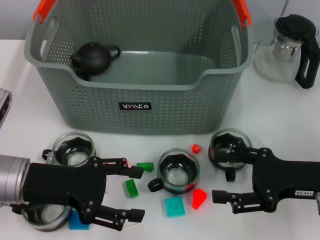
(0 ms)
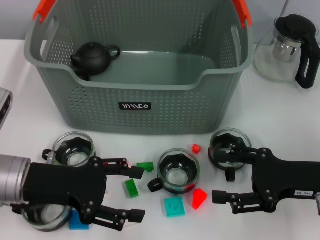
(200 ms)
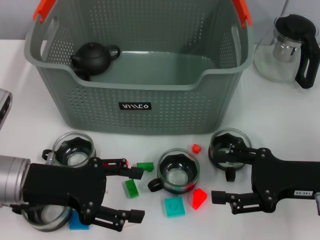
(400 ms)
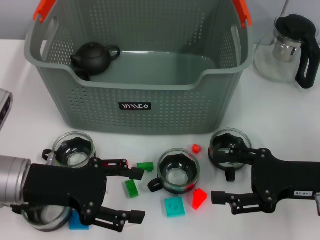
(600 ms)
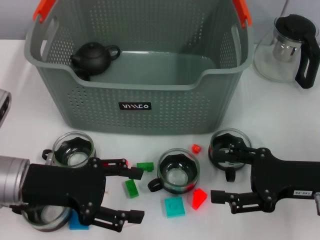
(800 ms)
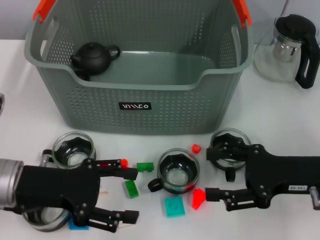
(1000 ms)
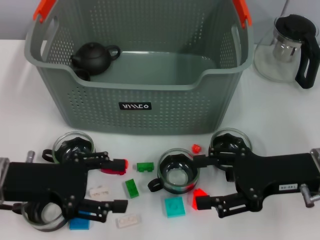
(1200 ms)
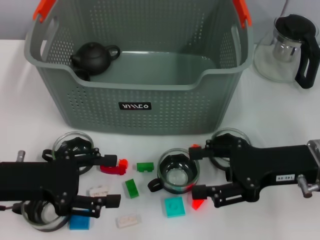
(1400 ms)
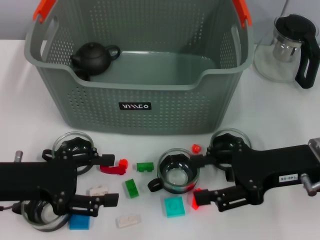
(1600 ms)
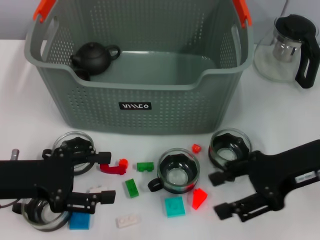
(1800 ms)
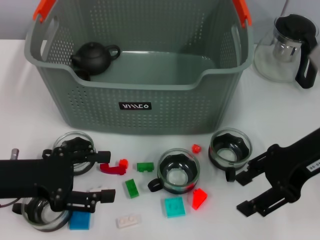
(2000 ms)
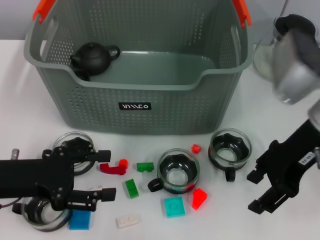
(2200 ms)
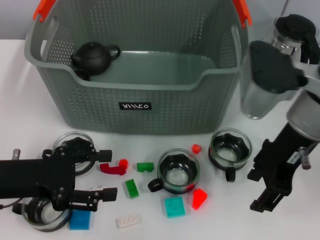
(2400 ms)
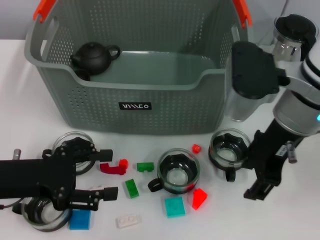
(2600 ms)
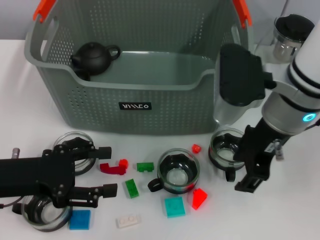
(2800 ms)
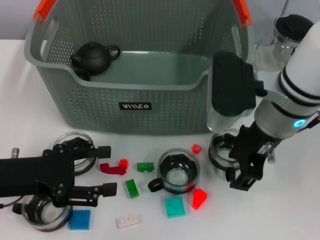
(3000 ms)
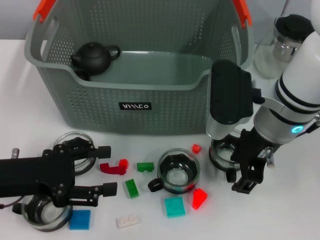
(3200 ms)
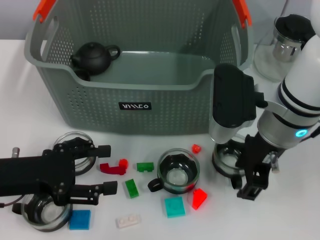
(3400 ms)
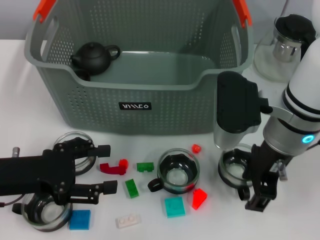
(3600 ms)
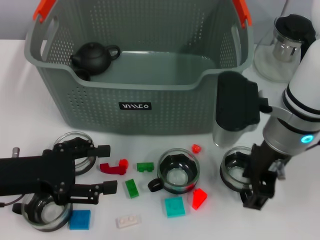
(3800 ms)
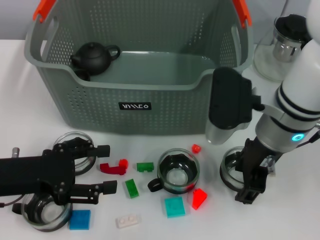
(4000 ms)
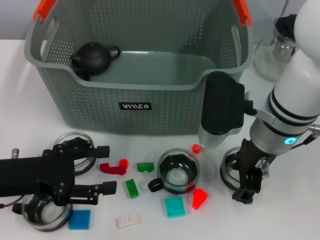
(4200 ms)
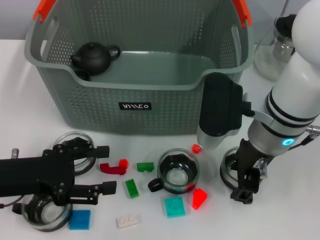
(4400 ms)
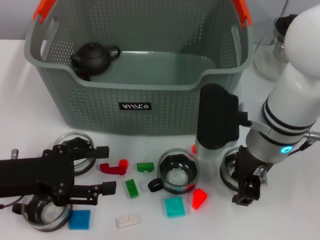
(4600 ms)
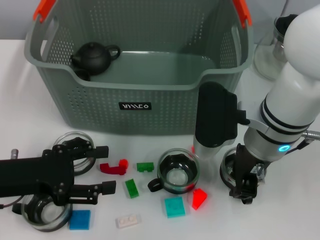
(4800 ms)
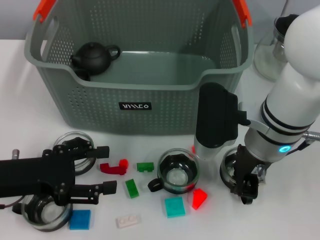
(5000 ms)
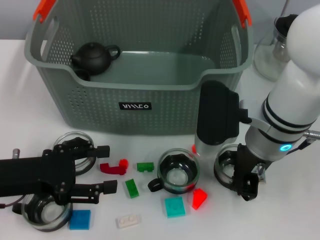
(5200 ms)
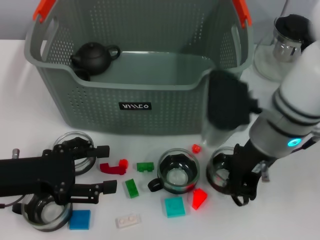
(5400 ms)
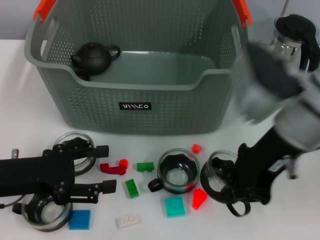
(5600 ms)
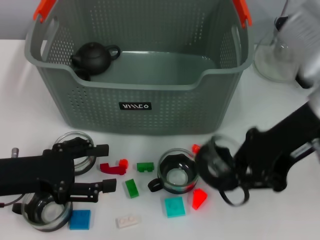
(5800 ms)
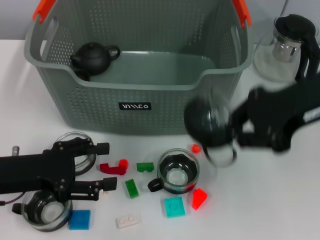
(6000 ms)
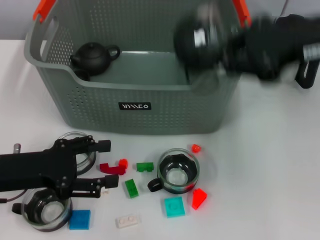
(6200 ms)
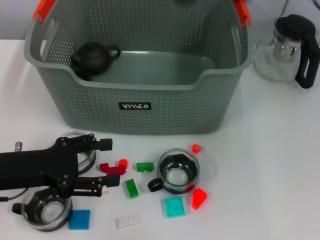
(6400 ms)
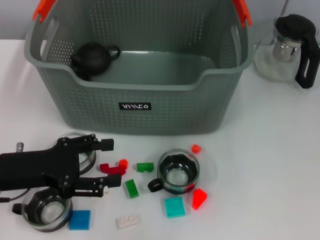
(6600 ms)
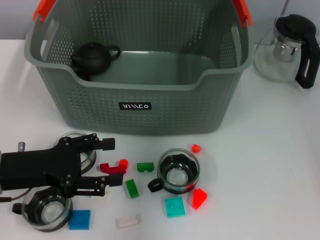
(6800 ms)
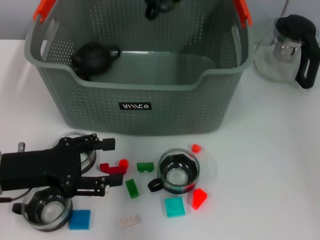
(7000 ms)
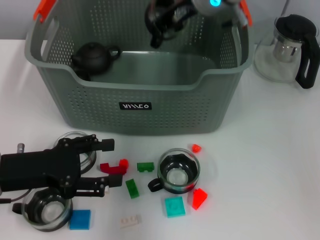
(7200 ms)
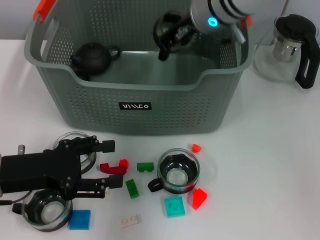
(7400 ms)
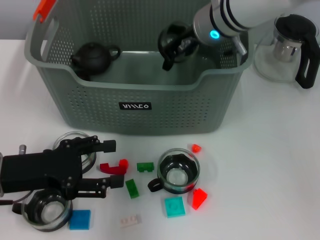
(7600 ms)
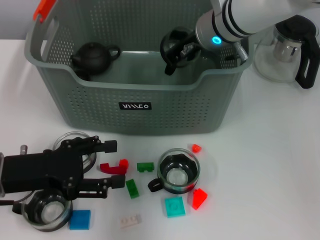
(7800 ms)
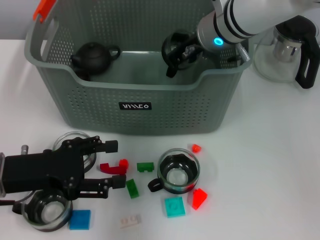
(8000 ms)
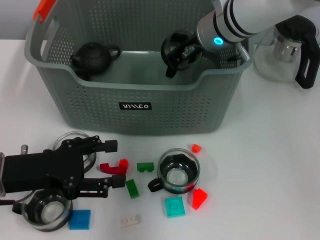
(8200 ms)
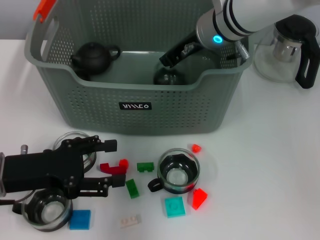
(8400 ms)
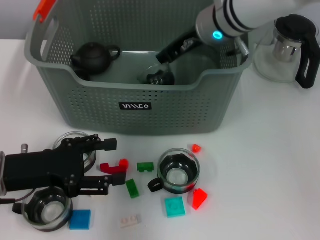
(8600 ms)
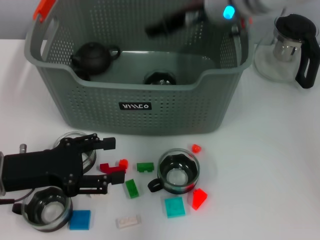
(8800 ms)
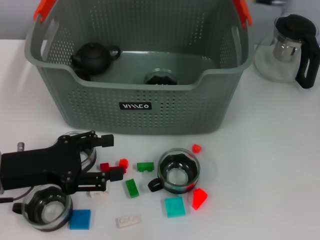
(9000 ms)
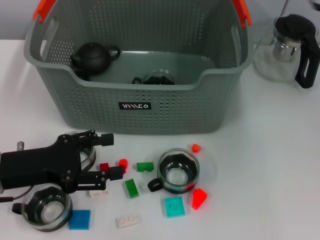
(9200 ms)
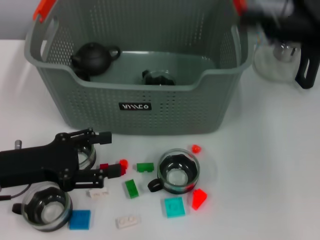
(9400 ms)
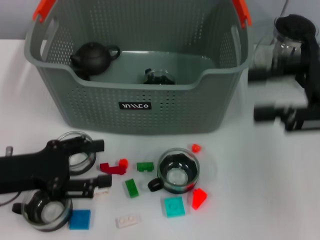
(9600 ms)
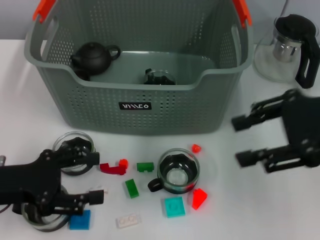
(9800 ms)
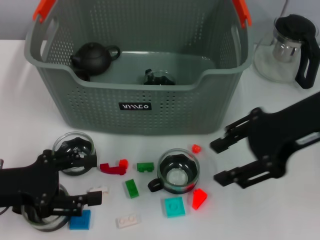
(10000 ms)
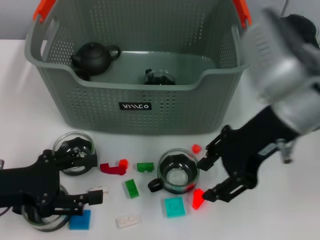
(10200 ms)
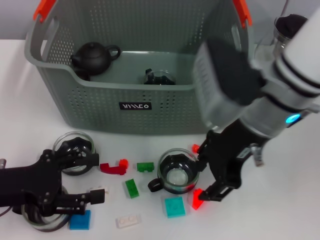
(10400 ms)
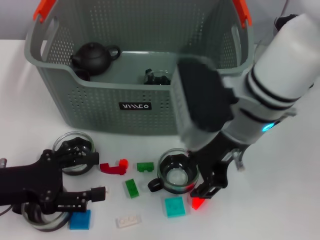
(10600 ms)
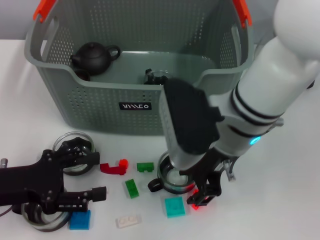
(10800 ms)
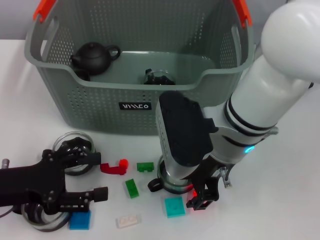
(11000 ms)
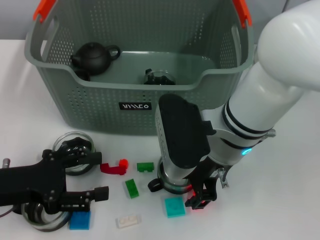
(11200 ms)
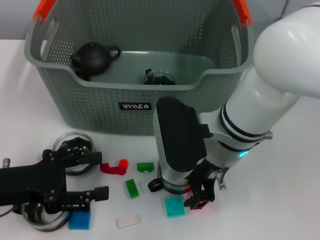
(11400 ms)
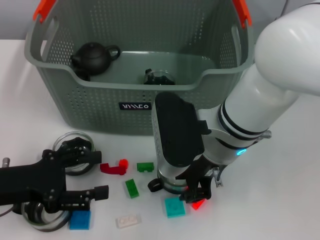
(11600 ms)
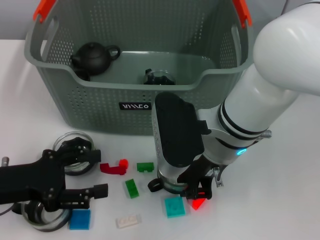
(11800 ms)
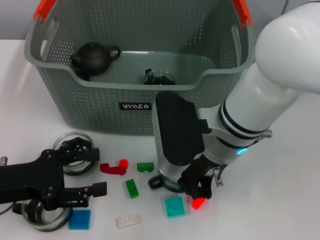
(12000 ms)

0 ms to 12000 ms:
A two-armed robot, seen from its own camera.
Task of the whole recording: pick up the teacup on the table and place it into the storage bin, pick up the block on the table and place it into the storage bin.
Step, 0 ms to 5000 ms: Grasp the cup with right gripper.
Step, 5400 ms to 8400 ms: Place the cup in the storage box with right gripper.
Step, 8600 ms to 11800 ms: Grasp the cup with right gripper.
0 ms to 1600 ms: The right gripper shifts by roughly 5 cm.
1600 ms to 3000 ms: The right gripper travels to the left and upward by approximately 10 cm.
3000 ms to 4400 ms: The grippers move only a little.
4400 ms to 6000 ms: The right gripper goes about 15 cm upward and to the right, and closes.
6000 ms to 7600 ms: The right gripper shifts some 20 cm to the left, forward and downward.
7600 ms to 9000 ms: The right gripper travels to the right and upward by roughly 15 cm, and opens its fingers.
9000 ms to 10400 ms: The right gripper moves backward and downward, some 10 cm, and reaches approximately 10 cm to the right, then returns.
10400 ms to 12000 ms: The right gripper heads downward, covering about 5 cm, and closes its fingers.

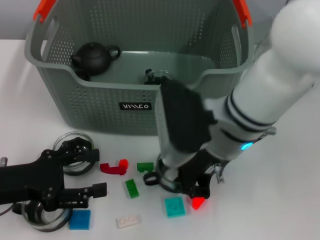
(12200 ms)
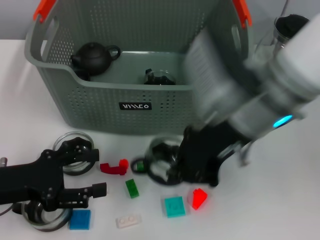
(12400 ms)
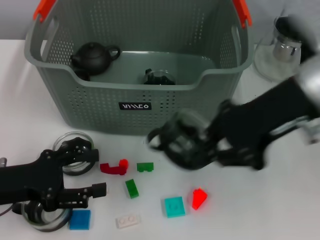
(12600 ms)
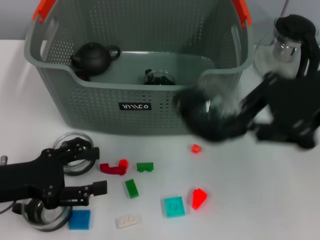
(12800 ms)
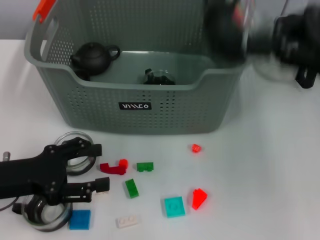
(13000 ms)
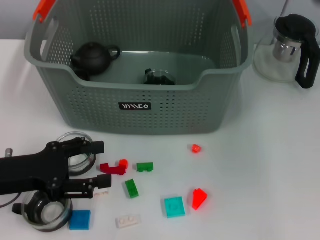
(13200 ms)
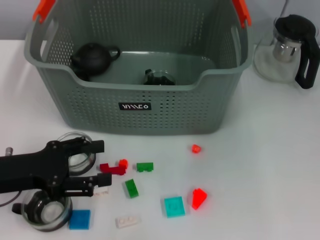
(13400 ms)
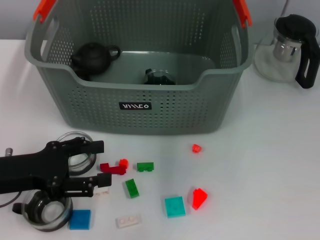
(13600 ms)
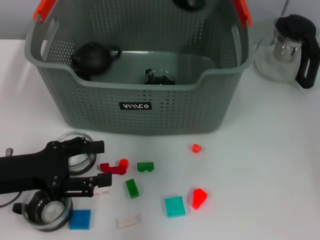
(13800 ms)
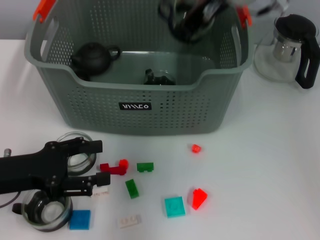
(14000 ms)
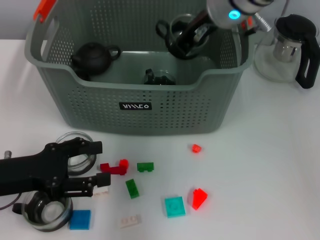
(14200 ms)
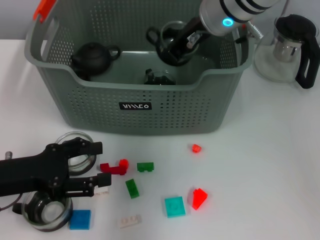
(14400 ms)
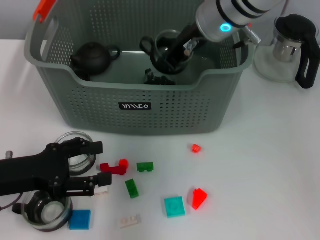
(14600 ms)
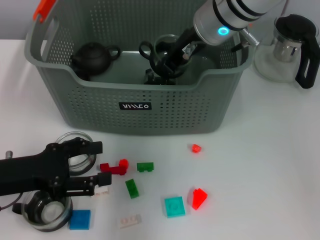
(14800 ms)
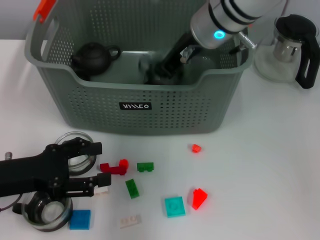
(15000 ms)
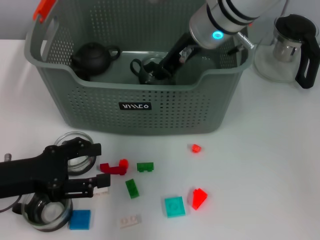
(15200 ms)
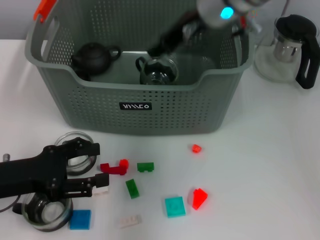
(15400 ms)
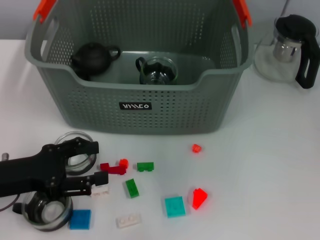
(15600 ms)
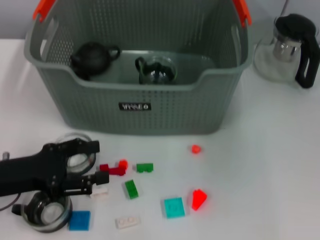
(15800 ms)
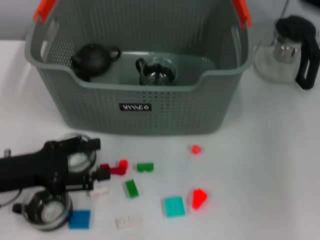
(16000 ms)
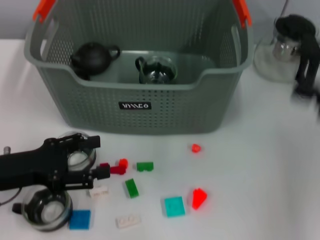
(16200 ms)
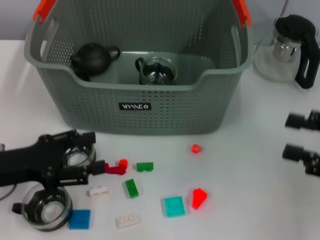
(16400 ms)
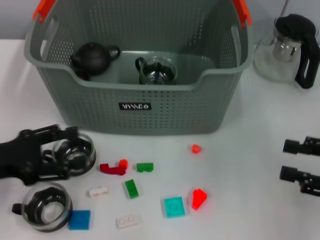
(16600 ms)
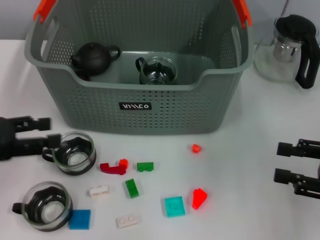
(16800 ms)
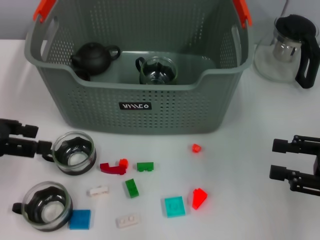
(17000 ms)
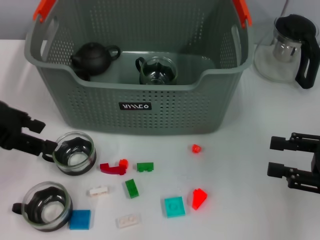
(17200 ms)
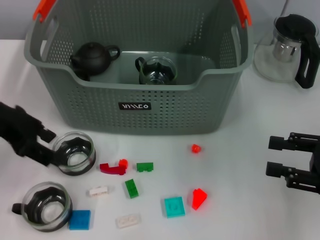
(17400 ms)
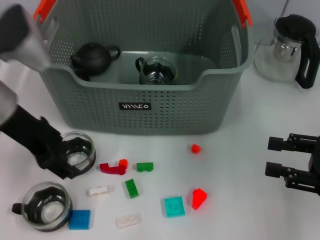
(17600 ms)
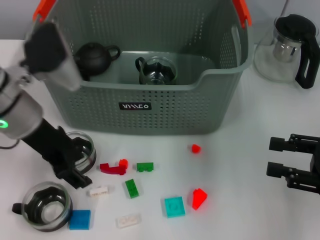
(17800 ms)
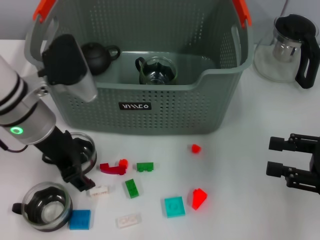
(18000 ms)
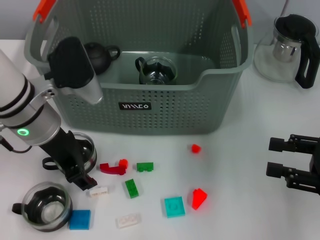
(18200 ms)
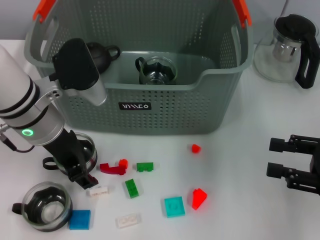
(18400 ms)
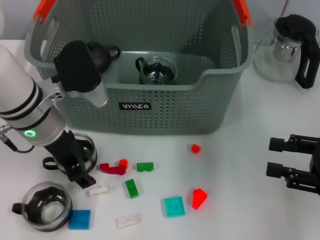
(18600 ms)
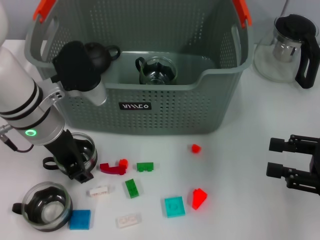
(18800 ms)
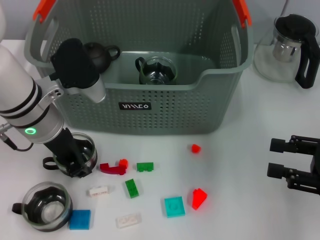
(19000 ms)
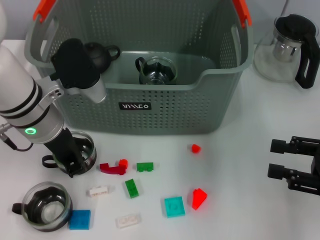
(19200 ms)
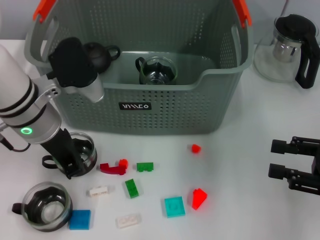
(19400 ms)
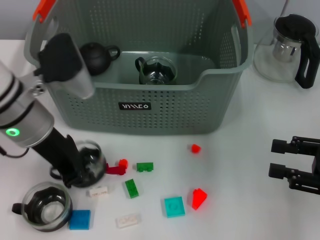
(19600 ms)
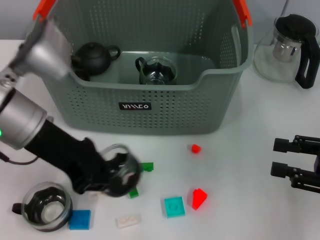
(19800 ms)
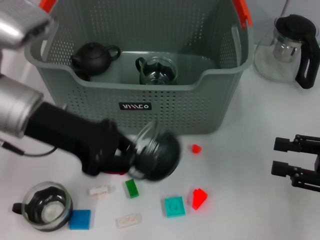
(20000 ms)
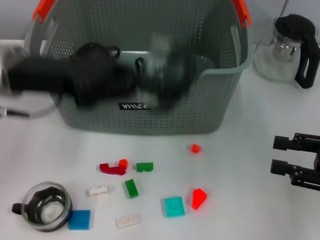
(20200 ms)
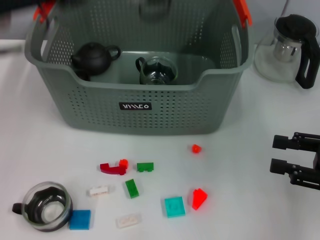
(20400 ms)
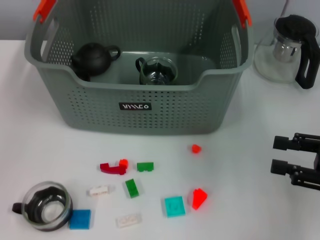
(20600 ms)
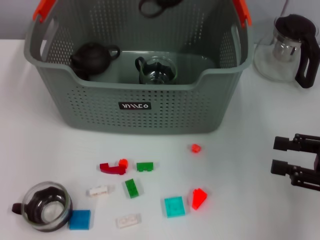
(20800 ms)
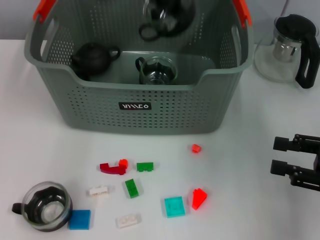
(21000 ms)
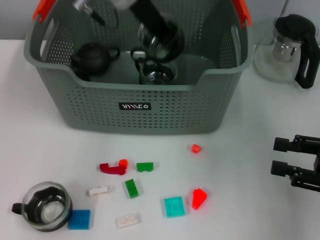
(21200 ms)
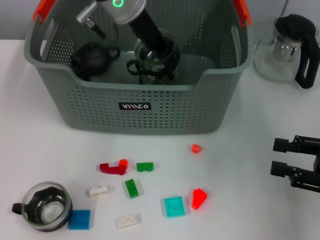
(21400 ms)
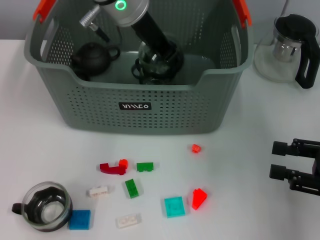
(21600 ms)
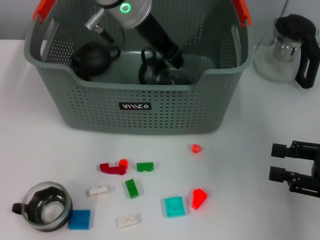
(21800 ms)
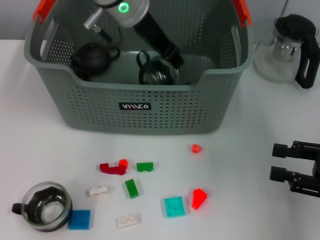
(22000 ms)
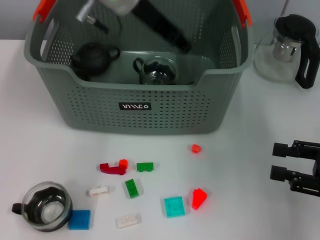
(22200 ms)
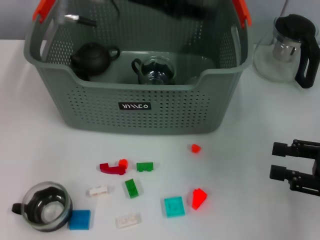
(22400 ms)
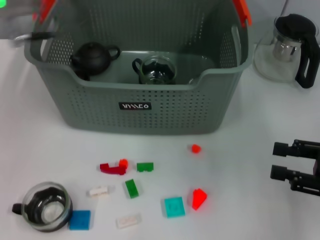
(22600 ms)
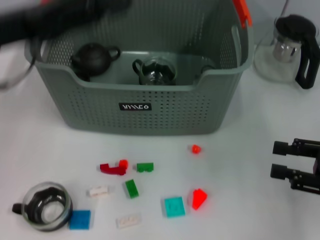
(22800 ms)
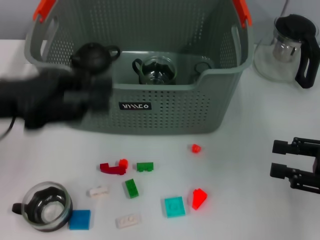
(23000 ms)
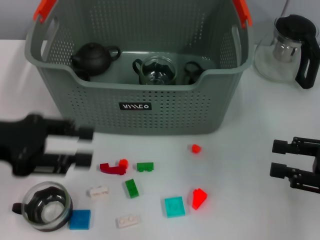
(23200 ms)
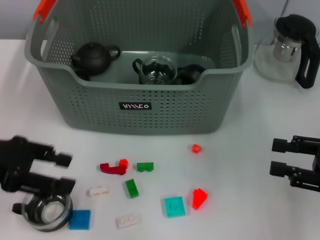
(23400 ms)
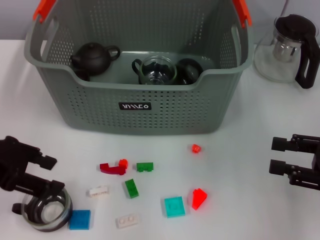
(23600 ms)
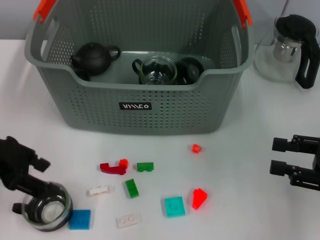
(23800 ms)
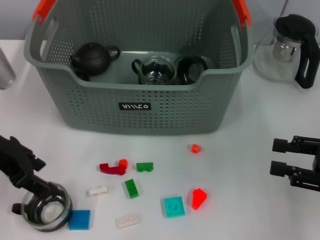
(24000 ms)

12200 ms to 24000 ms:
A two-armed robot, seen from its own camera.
Task of the whole recording: pick up the teacup on the table and place it into the storage bin, pick up the block on the table and place it into the storage bin.
Step, 12200 ms to 15400 ms: Place the cup in the storage box with right gripper.
Step, 15600 ms to 19200 ms: Grasp the cup with left gripper.
Step, 19400 ms to 21800 ms: Place the cup in the storage box with left gripper.
12200 ms to 13600 ms: The right gripper goes about 20 cm upward, forward and to the right.
13600 ms to 15200 ms: The right gripper travels downward and to the left by about 15 cm.
15200 ms to 16600 ms: The right gripper is displaced to the right and backward by roughly 35 cm, and opens up.
16600 ms to 18200 ms: The left gripper is displaced to the right and forward by some 15 cm.
18200 ms to 19600 ms: The left gripper closes.
19600 ms to 21000 ms: The left gripper moves upward, forward and to the right, some 20 cm.
21000 ms to 22600 ms: The left gripper is displaced to the left and backward by approximately 10 cm, and opens.
22600 ms to 24000 ms: The left gripper heads downward, backward and to the left, covering some 10 cm.
